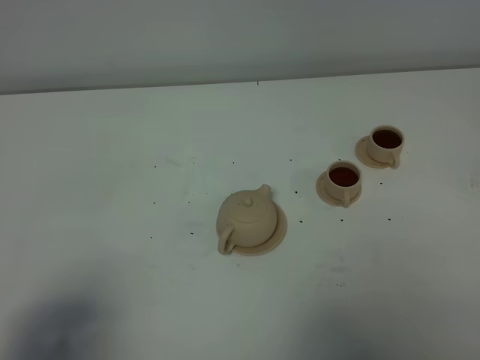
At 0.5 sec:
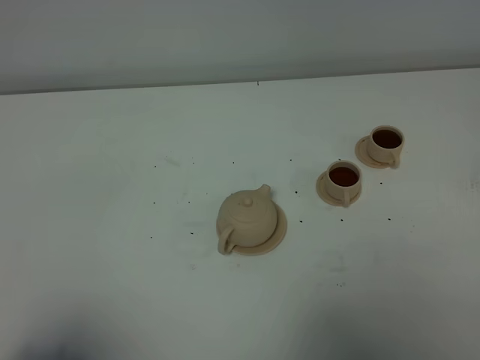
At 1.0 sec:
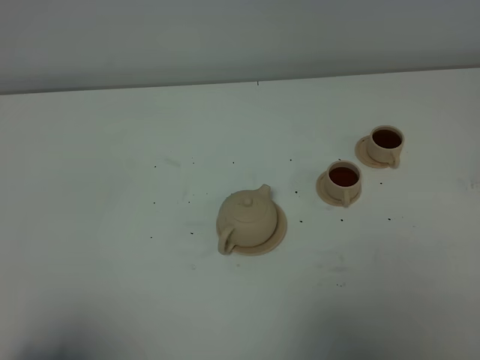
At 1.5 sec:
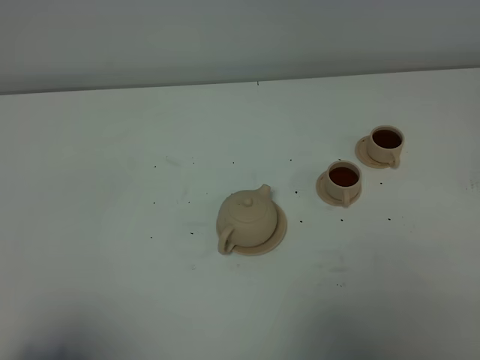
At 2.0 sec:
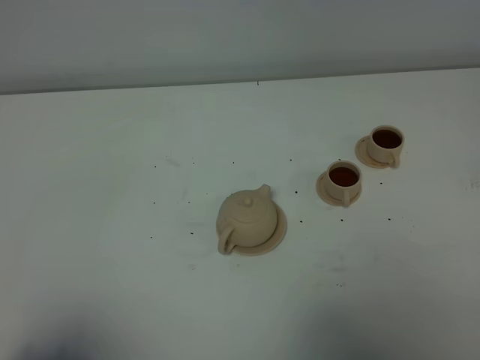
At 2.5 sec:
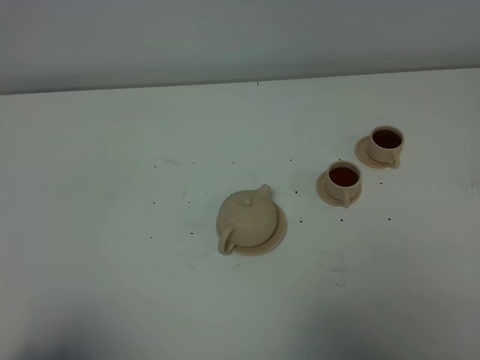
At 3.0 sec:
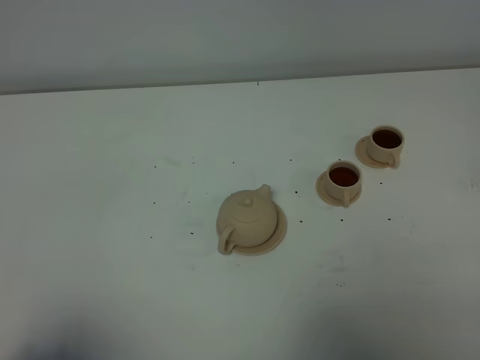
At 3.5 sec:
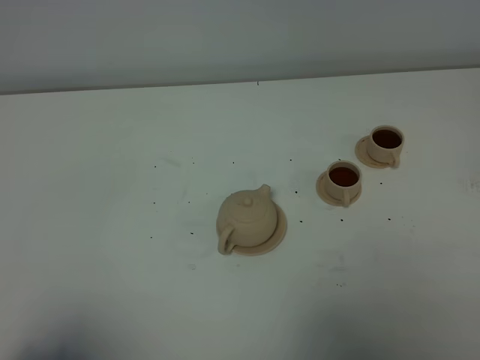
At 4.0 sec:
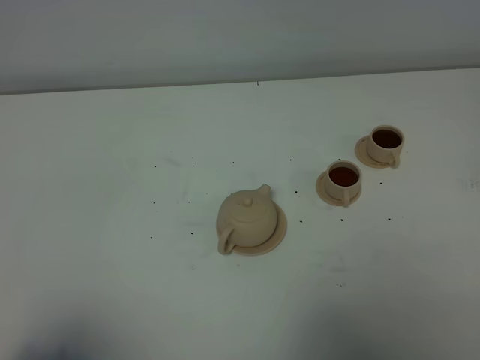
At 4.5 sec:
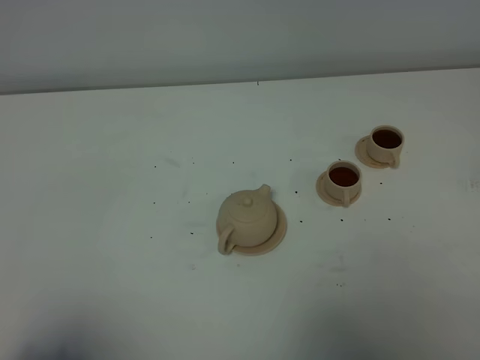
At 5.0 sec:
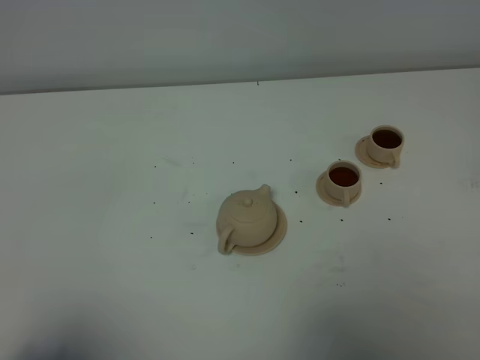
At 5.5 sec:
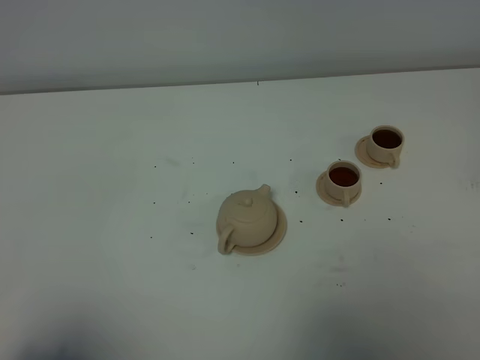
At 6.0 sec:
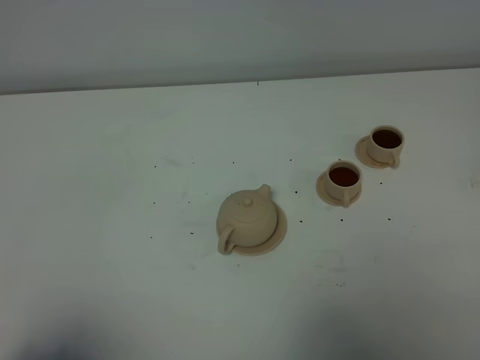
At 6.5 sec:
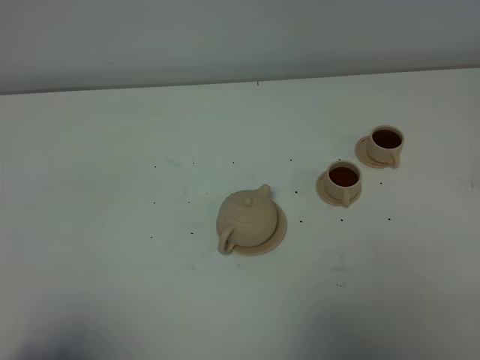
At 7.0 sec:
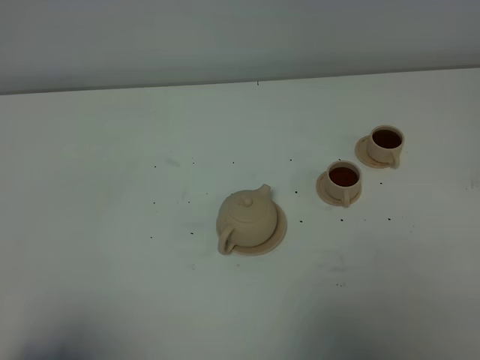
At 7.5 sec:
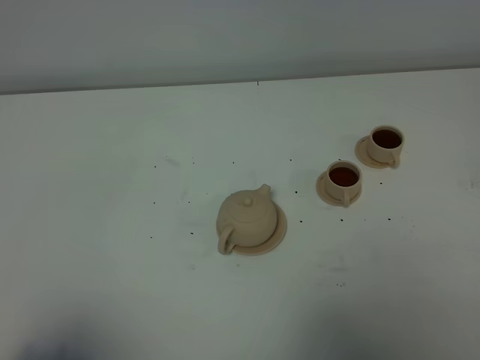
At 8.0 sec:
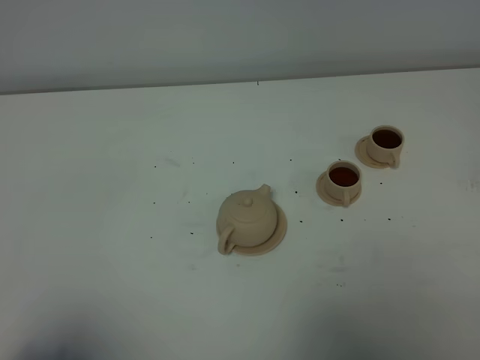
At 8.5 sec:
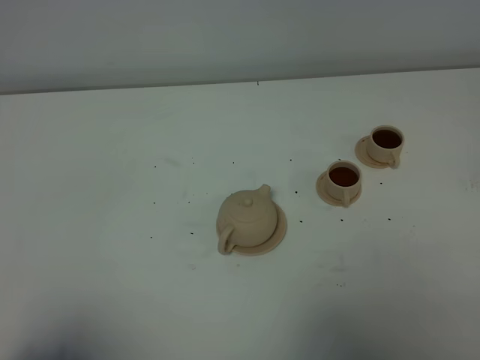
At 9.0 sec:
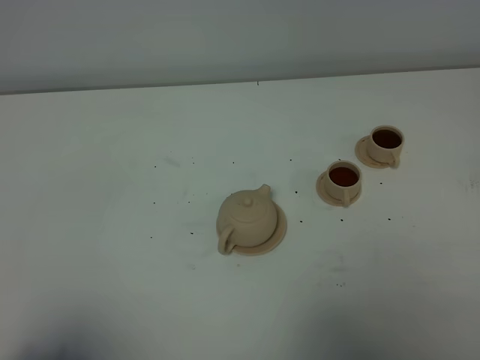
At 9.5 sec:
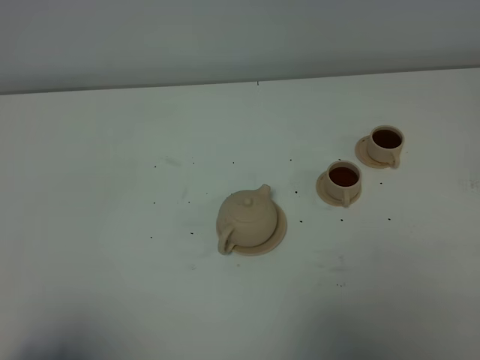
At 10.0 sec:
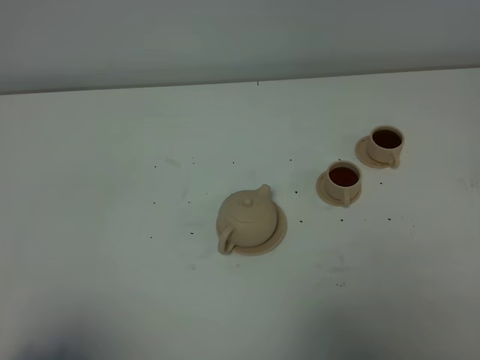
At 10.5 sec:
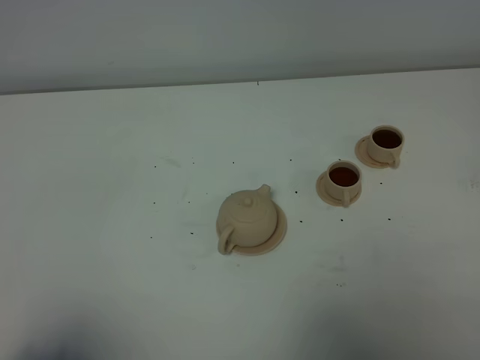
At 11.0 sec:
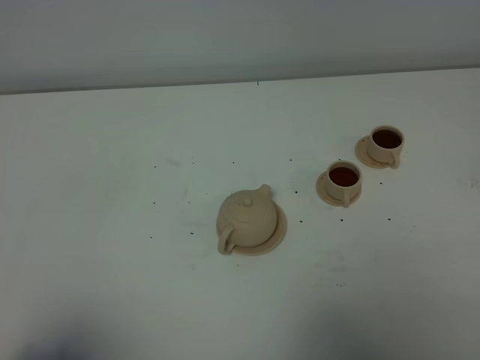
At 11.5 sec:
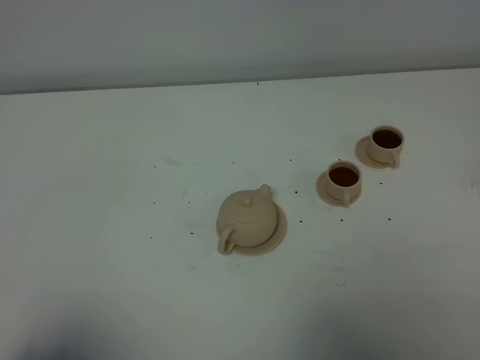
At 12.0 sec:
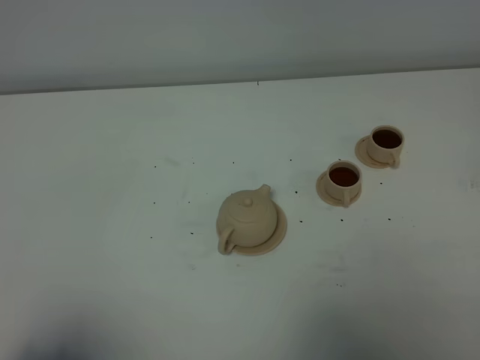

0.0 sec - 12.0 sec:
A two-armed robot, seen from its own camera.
Task of the whole recording: grasp the brown teapot and pour the tea into the two brown teacups one by one, put the brown teapot back in its original place.
0.0 sec - 2.0 sec: The left gripper changes place by roughly 5 cm.
2.0 sec - 12.0 sec: Both grippers stay about where they are.

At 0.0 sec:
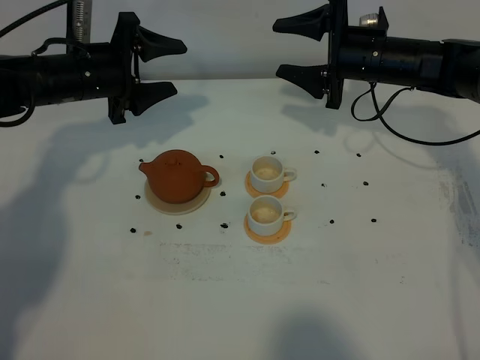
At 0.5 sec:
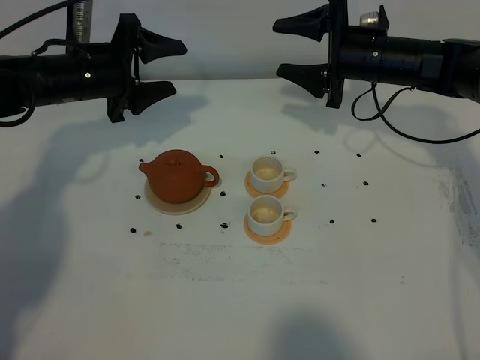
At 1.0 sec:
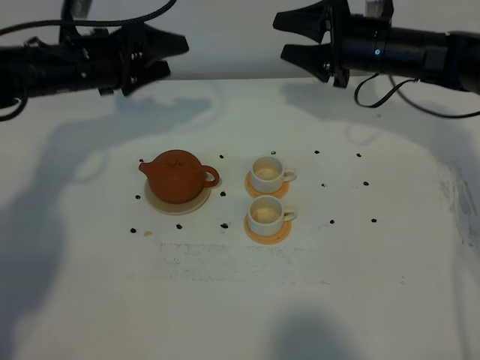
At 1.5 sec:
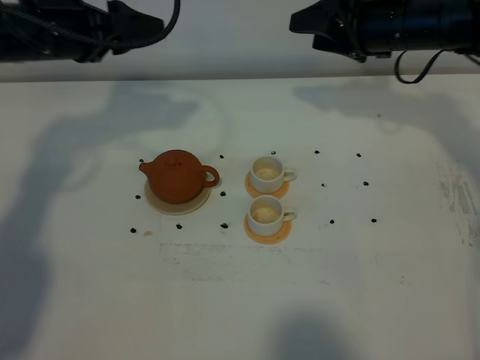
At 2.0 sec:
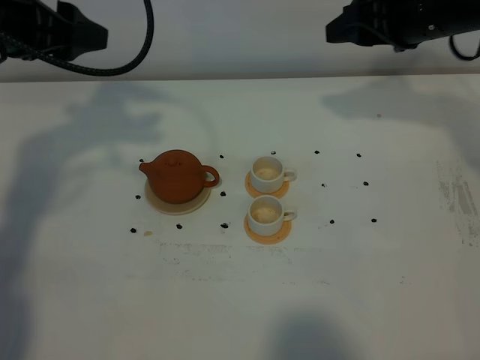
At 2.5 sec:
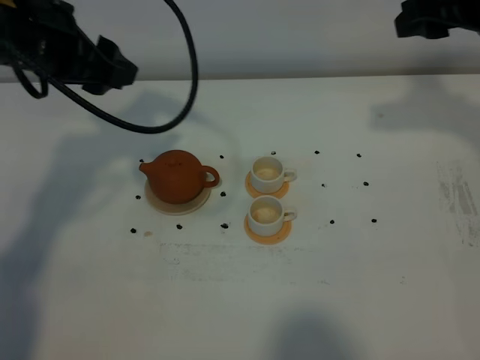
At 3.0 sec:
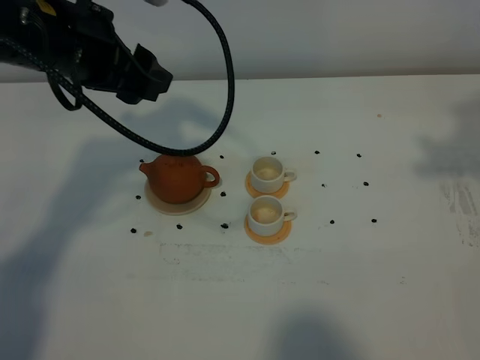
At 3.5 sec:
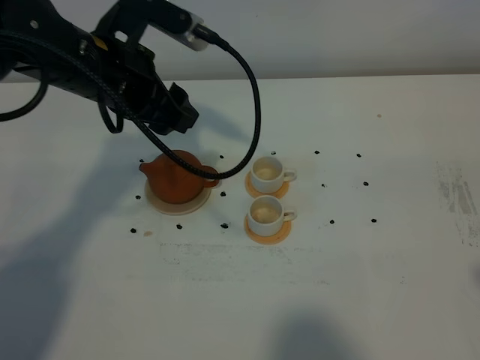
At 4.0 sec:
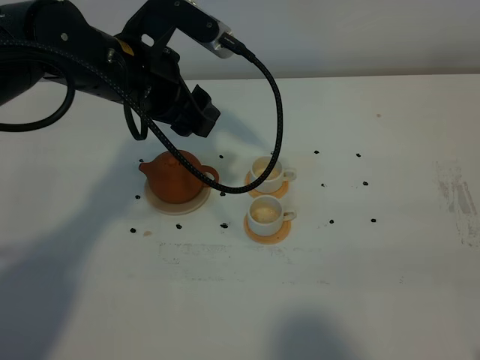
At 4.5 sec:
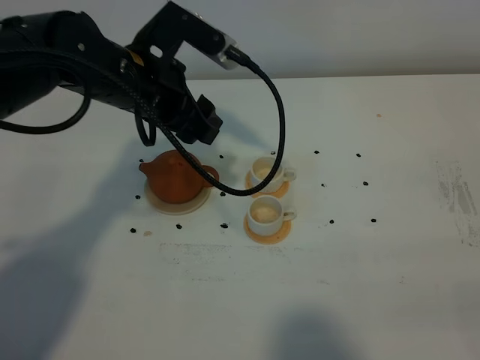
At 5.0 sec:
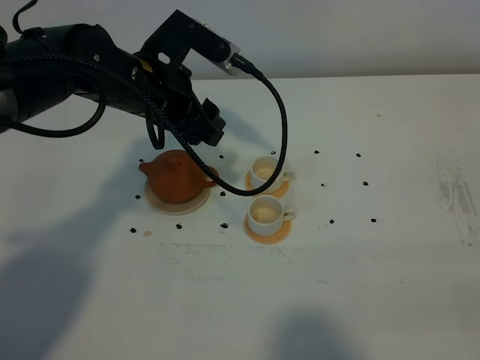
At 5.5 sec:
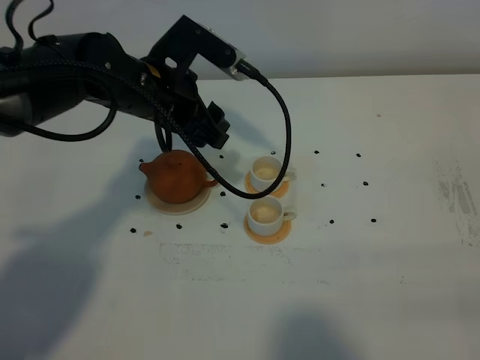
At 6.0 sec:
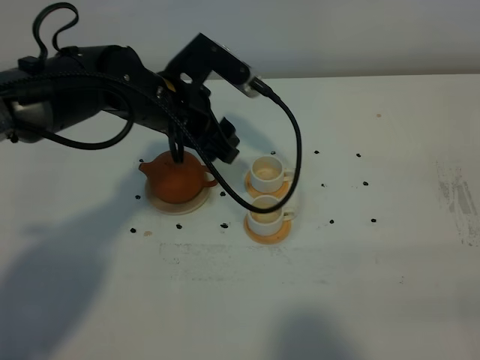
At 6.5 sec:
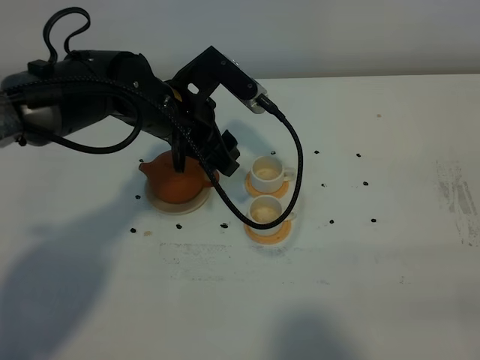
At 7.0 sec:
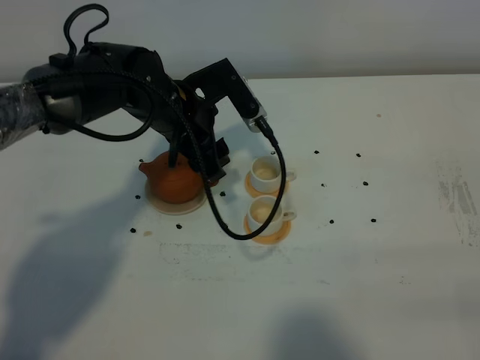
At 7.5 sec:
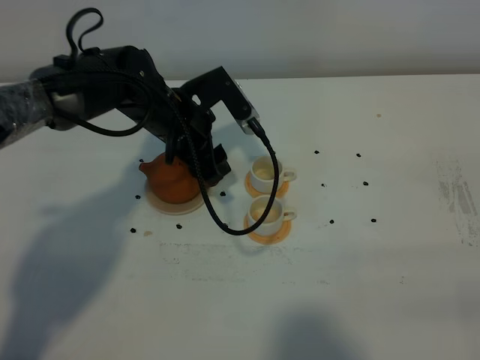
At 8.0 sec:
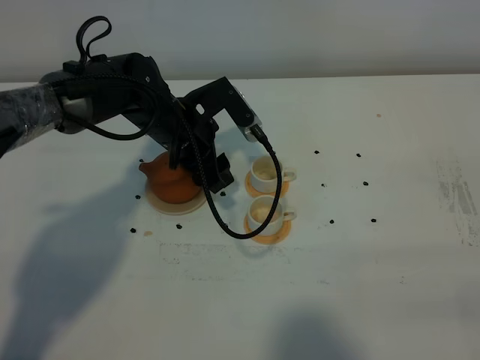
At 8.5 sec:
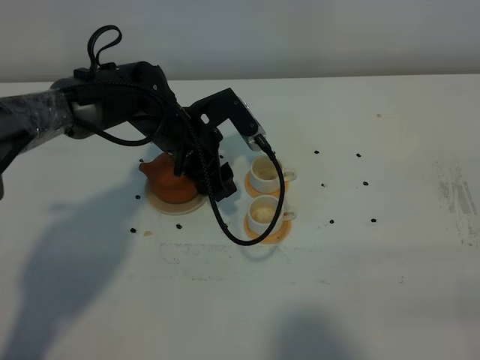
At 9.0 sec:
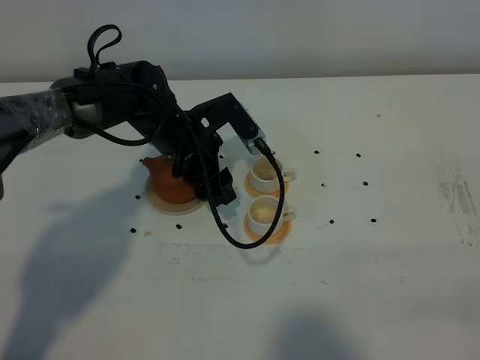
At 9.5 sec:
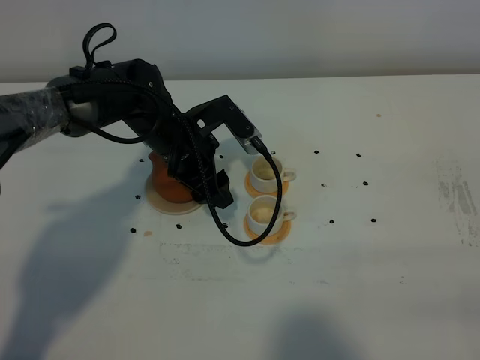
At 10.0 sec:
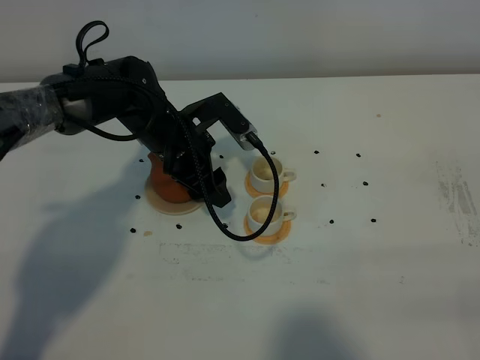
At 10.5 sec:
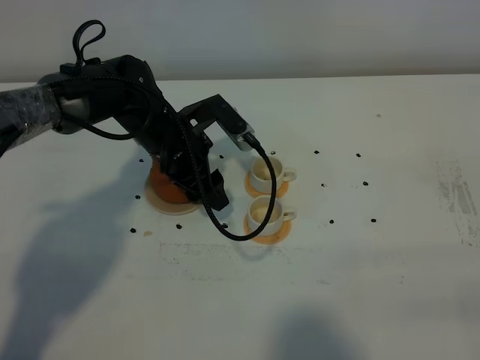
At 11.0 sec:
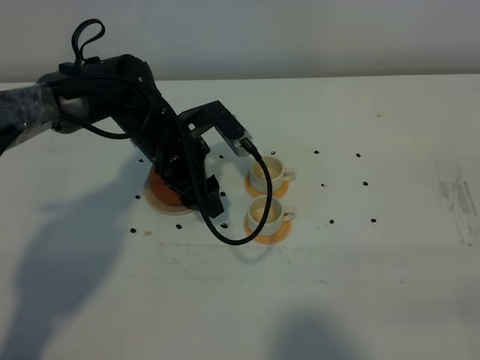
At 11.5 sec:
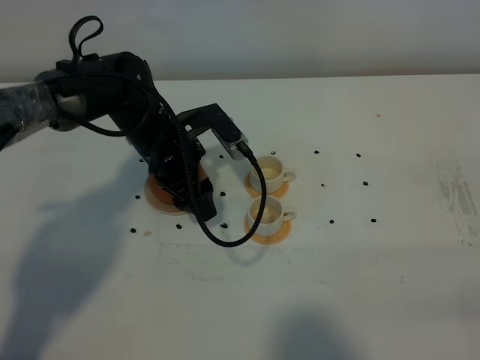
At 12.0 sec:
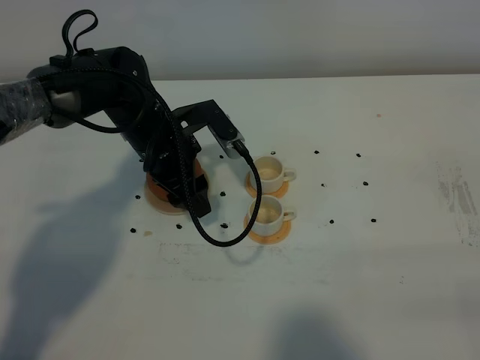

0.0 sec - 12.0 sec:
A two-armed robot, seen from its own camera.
Task of the whole recording: grasp the brown teapot and pour the tea into the two white teacups one by one, put the brown teapot back in its original place.
0.0 sec - 2.0 sec: The right gripper heads upward, covering some 10 cm; the left gripper shifts some 15 cm upward and backward.
2.0 sec - 4.0 sec: The right gripper is displaced backward by some 40 cm, while the left gripper goes some 15 cm to the right and downward.
4.0 sec - 6.0 sec: The left gripper shifts approximately 5 cm downward.
6.0 sec - 8.0 sec: The left gripper moves downward, some 5 cm.
8.0 sec - 12.0 sec: The grippers move only a little.

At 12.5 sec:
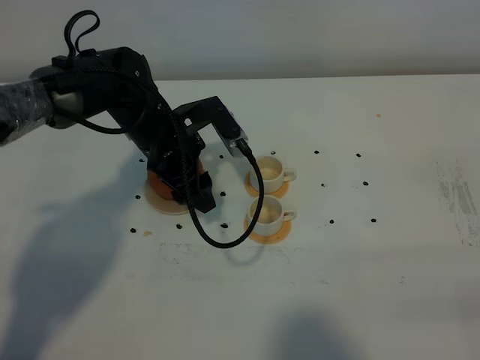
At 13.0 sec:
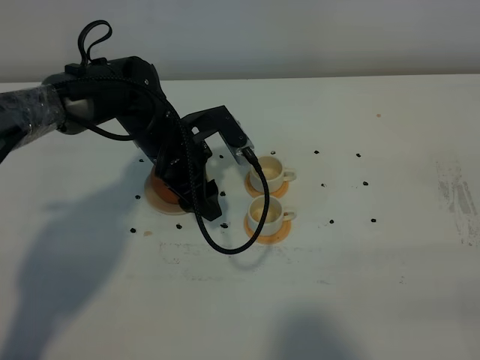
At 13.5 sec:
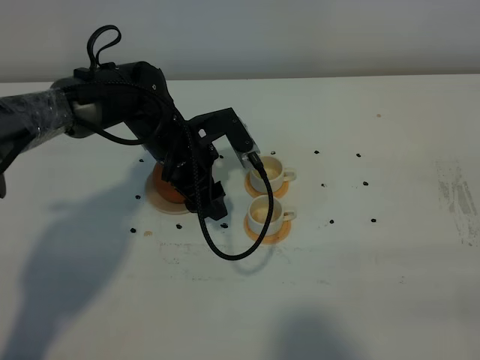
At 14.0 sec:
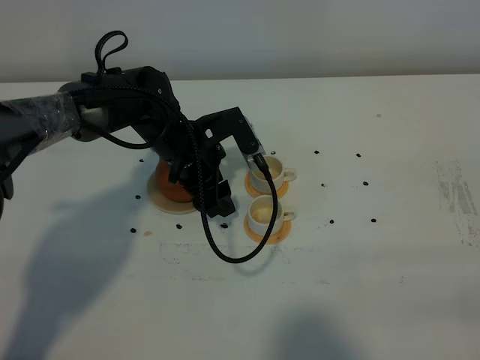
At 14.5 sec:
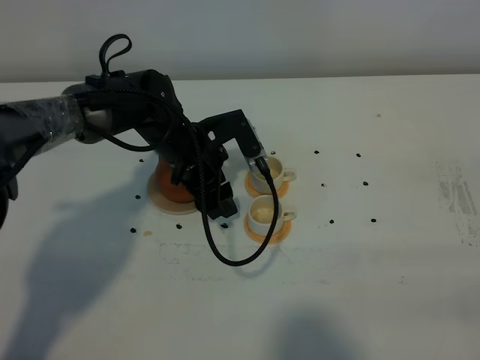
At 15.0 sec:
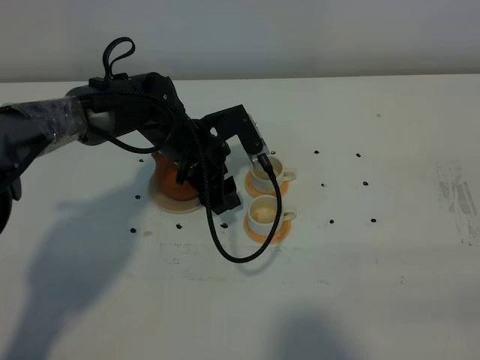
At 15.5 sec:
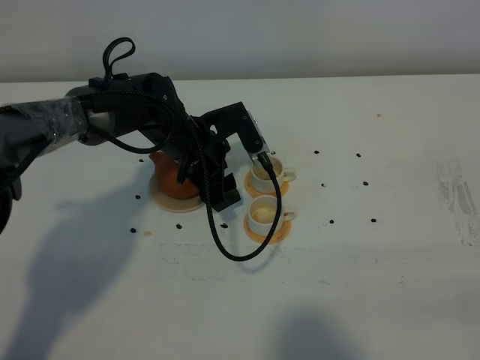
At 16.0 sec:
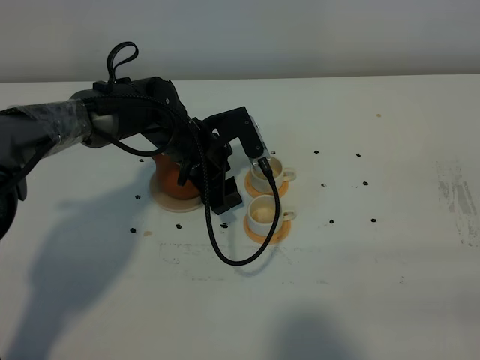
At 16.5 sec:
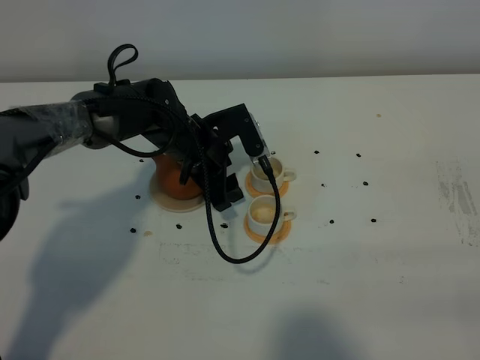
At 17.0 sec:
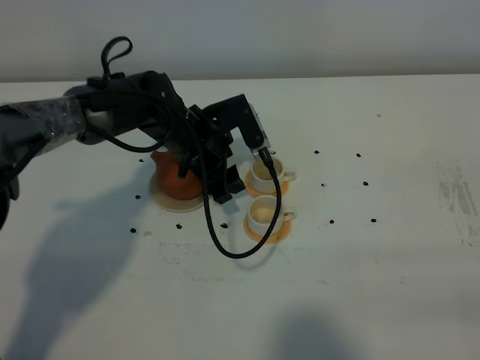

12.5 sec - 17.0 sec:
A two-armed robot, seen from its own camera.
Task of the whole recording: grasp the brown teapot and pour the tea into the two white teacups one by one, put the brown teapot back in its original place.
12.5 sec - 17.0 sec: The grippers move only a little.
